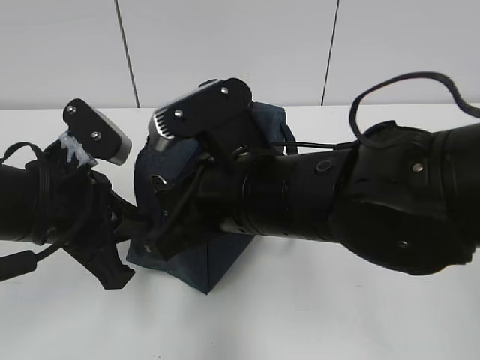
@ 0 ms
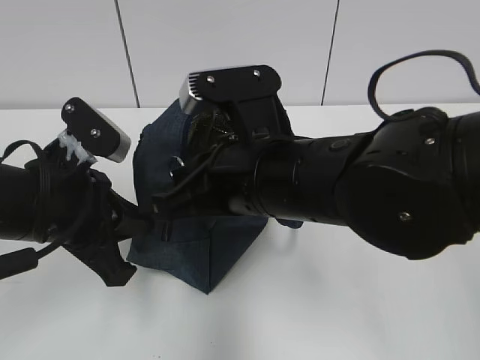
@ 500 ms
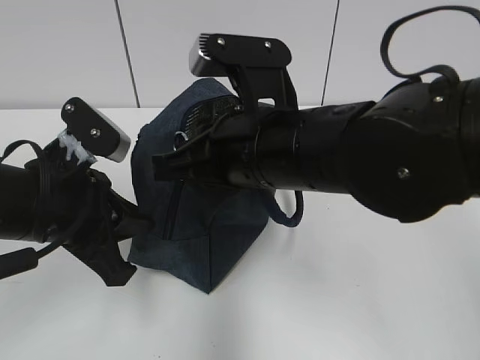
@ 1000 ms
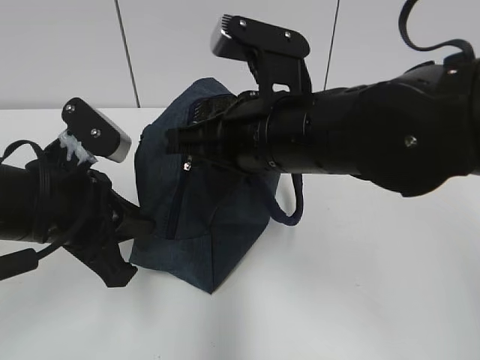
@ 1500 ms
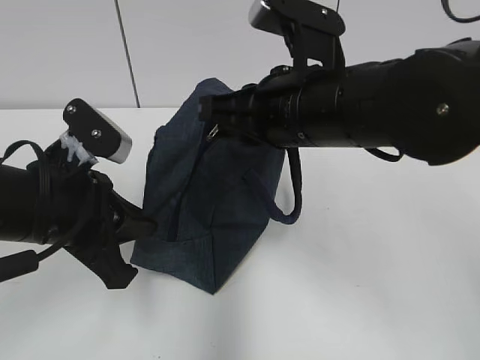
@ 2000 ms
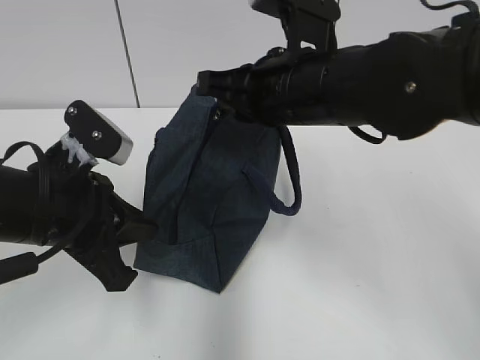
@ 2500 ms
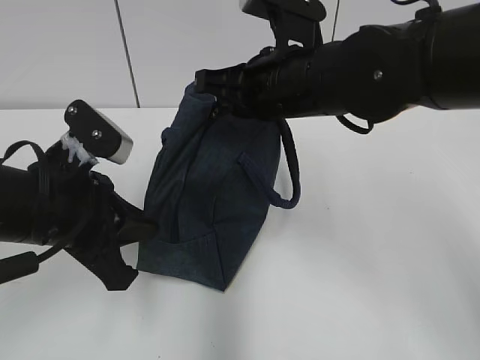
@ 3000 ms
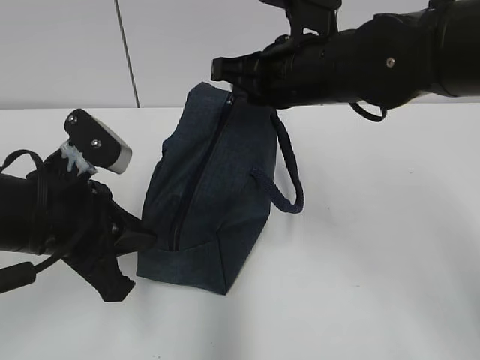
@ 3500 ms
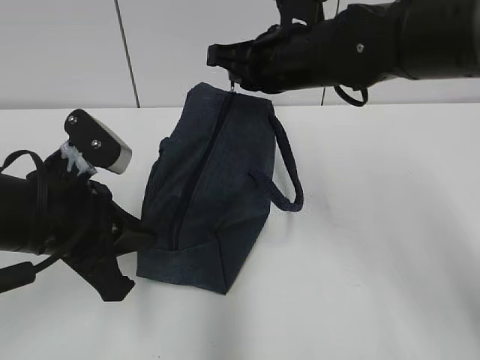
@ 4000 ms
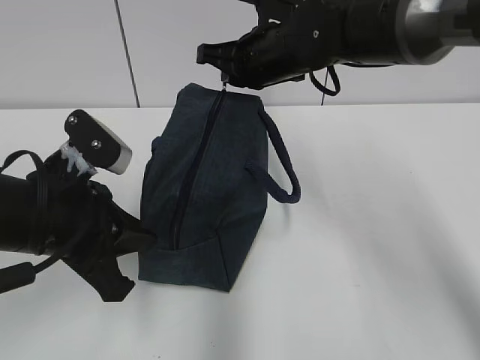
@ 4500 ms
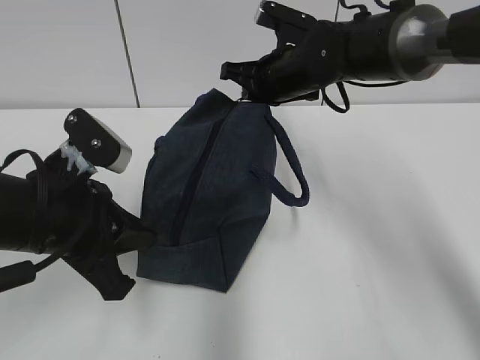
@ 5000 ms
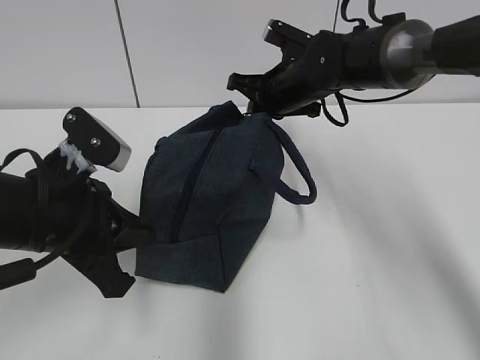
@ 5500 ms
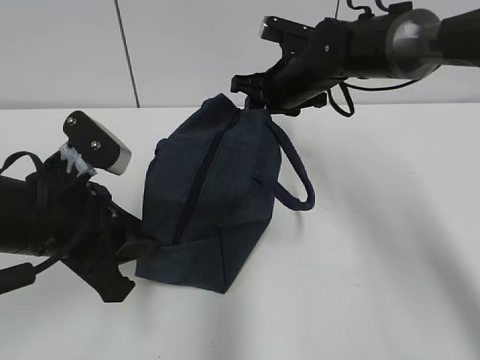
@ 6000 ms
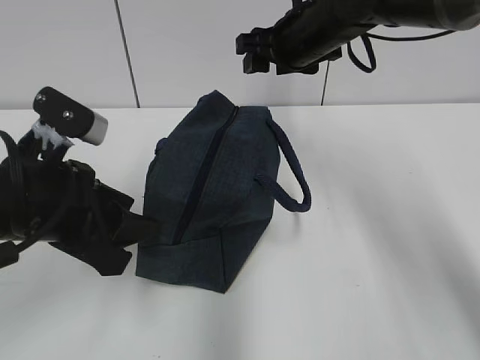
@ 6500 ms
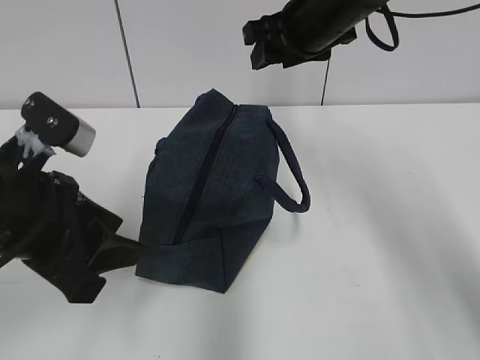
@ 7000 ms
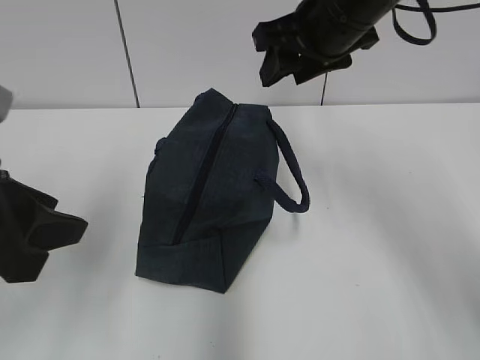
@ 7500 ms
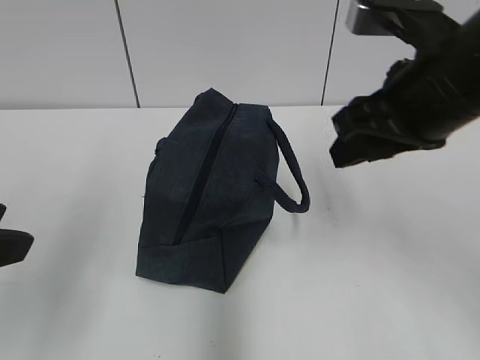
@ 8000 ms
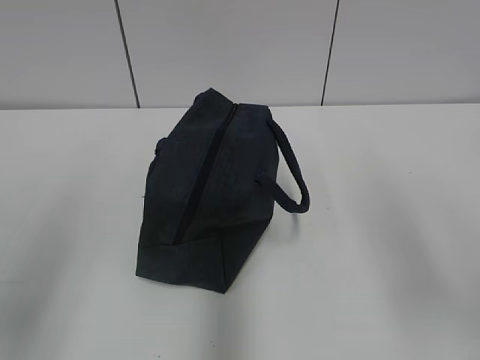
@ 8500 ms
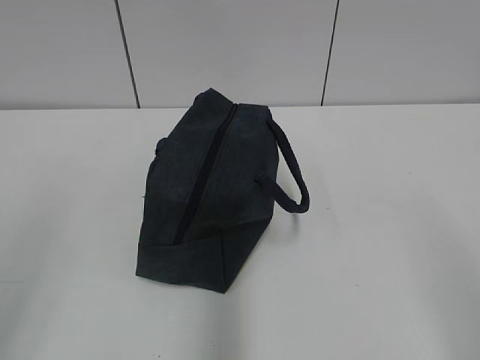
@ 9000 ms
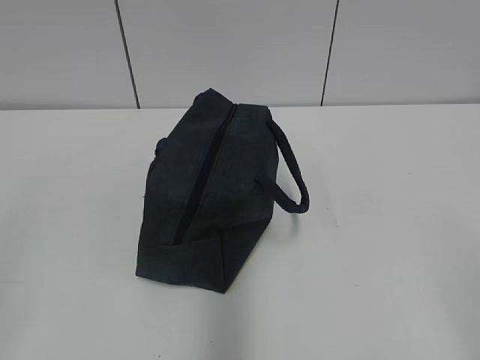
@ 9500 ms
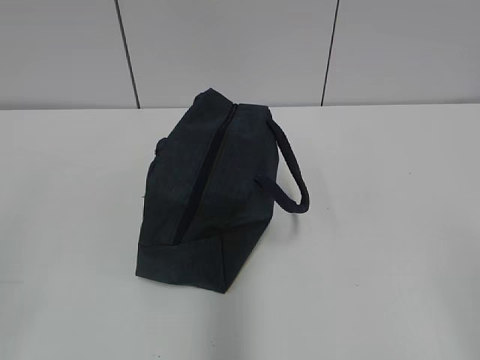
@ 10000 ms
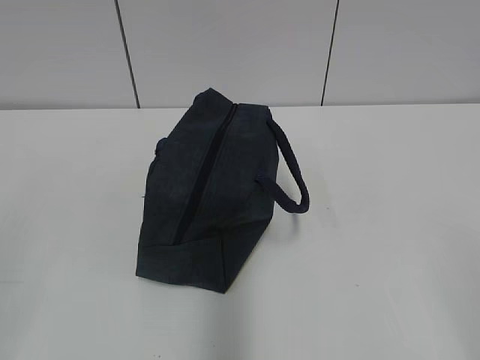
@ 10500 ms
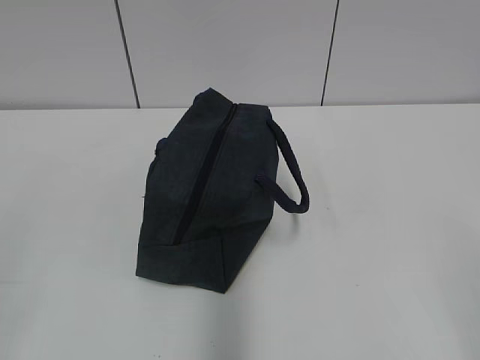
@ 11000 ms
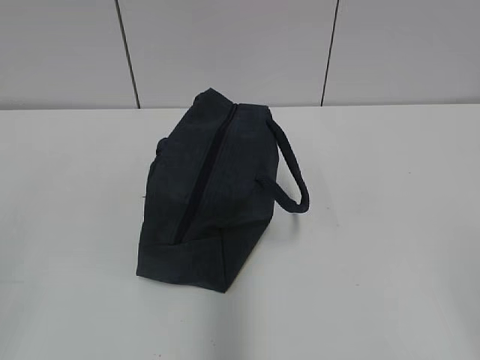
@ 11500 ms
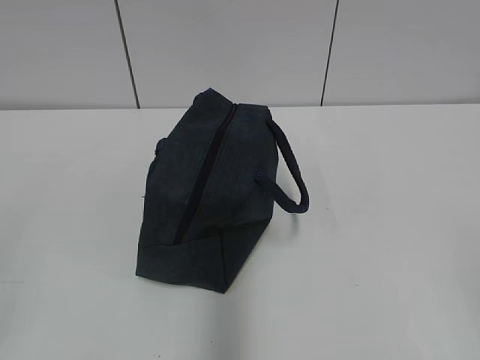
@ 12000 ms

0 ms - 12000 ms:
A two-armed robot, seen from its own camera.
Step, 0 ms - 5500 ms: Pull the zipper with your right hand.
0 ms - 2000 ms: The right gripper ends up some 10 cm from where it was.
2000 ms - 4000 ms: The right gripper heads forward, covering some 10 cm.
4000 ms - 6000 ms: The right gripper goes approximately 10 cm forward and downward, and opens up. Meanwhile the left gripper opens its fingers.
6000 ms - 8000 ms: The left gripper shifts roughly 15 cm upward, backward and to the left, while the right gripper moves backward and upward, some 25 cm.
8000 ms - 10000 ms: The right gripper heads backward and to the right, covering roughly 30 cm. The left gripper moves backward and to the left, roughly 15 cm.

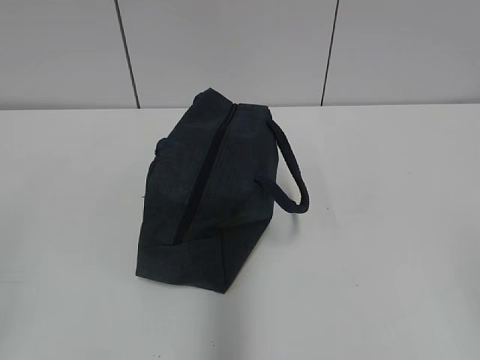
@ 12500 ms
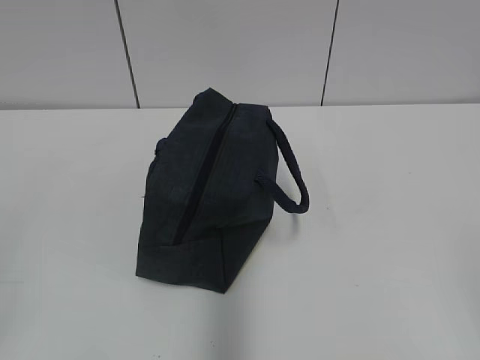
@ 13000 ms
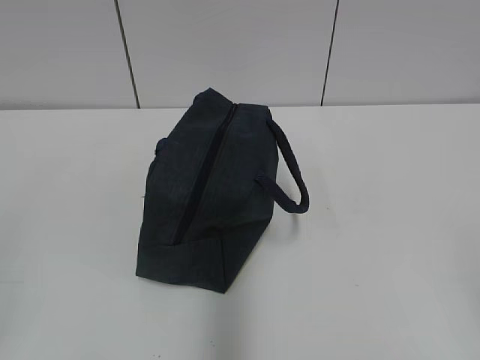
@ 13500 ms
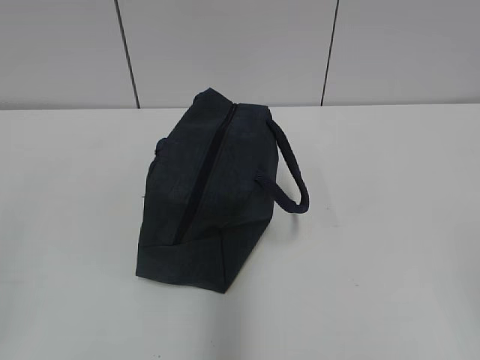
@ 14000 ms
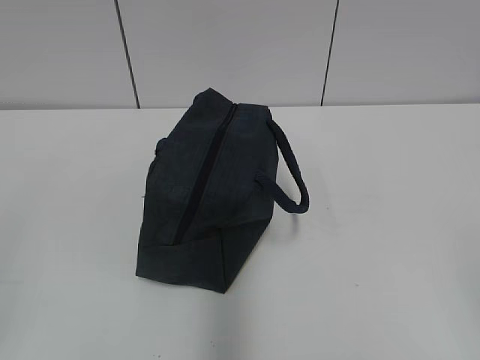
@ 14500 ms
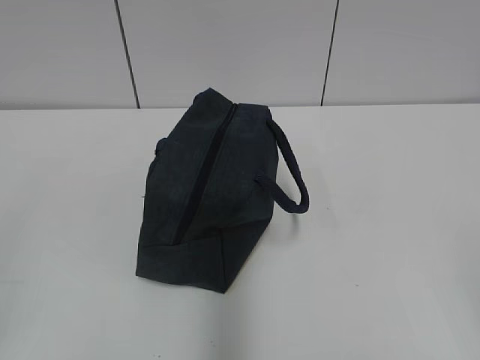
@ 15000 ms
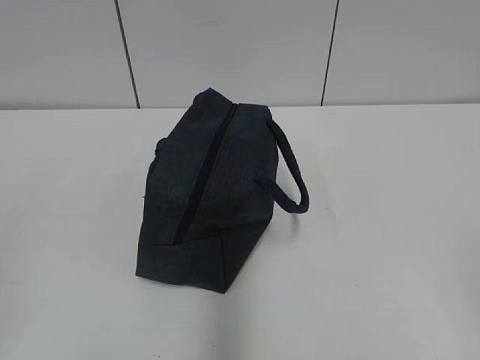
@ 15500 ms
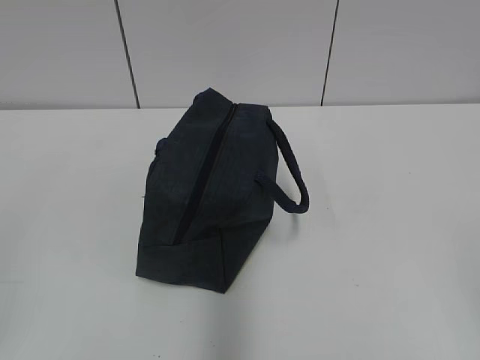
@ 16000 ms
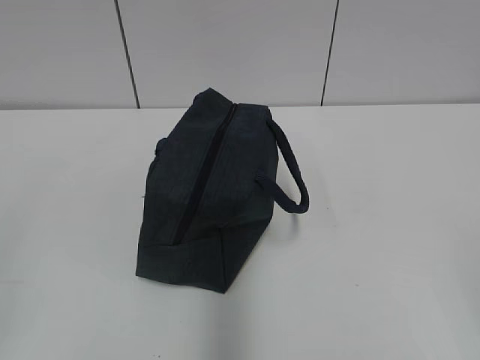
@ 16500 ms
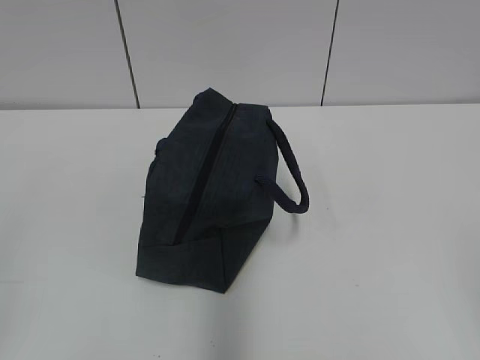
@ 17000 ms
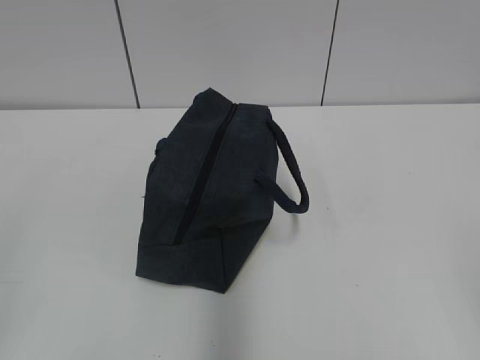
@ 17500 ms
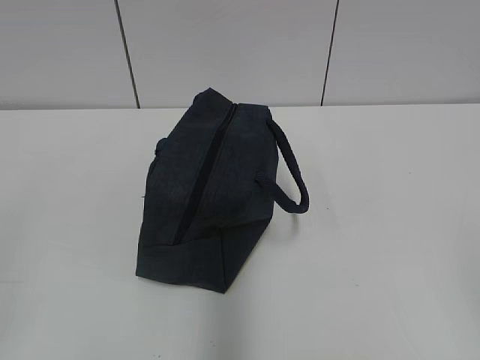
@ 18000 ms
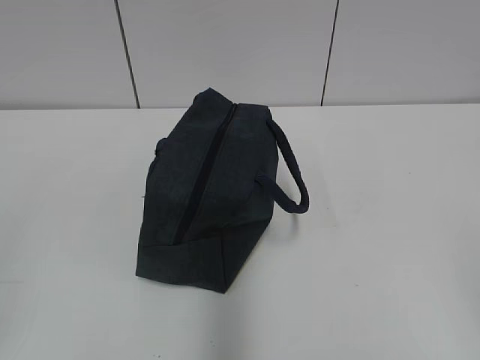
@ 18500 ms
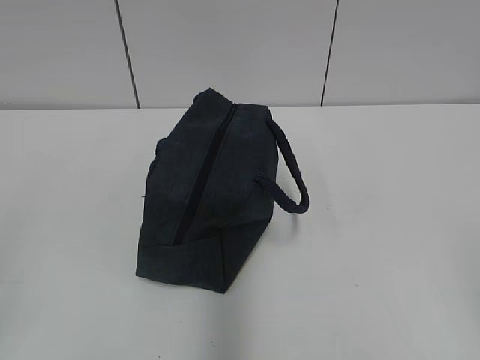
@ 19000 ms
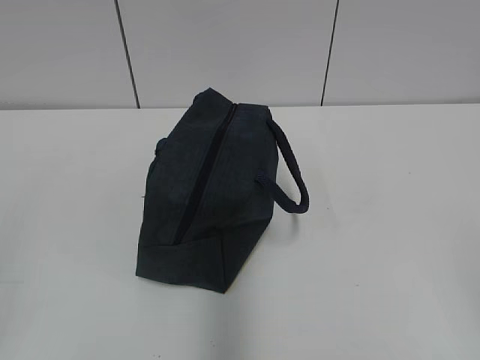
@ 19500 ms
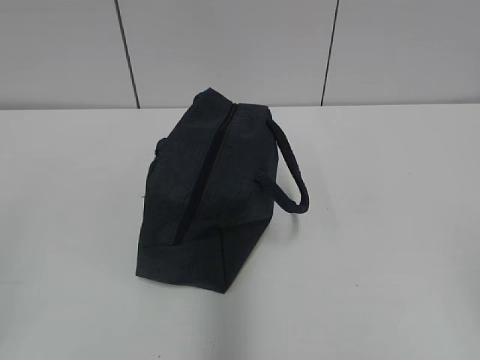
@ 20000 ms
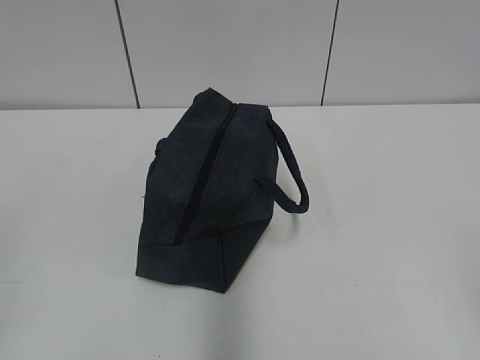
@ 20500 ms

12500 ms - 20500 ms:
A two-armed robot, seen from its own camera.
12500 ms - 20500 ms: The two grippers keep their place.

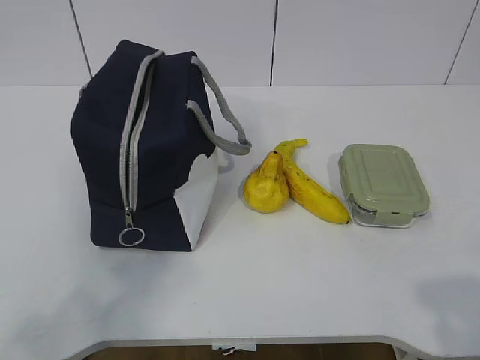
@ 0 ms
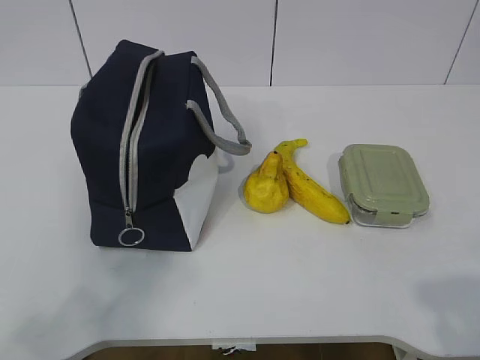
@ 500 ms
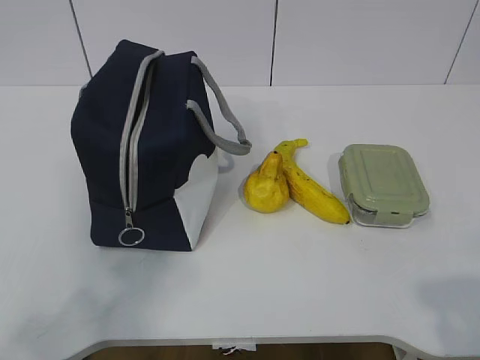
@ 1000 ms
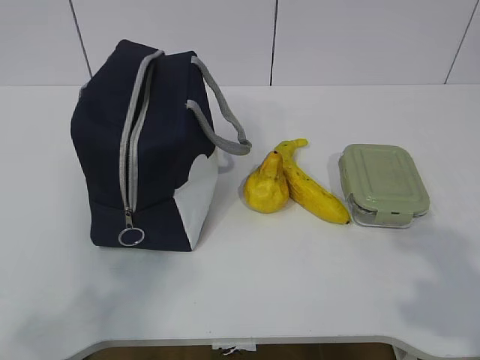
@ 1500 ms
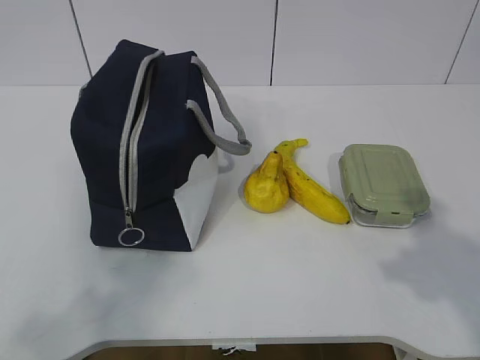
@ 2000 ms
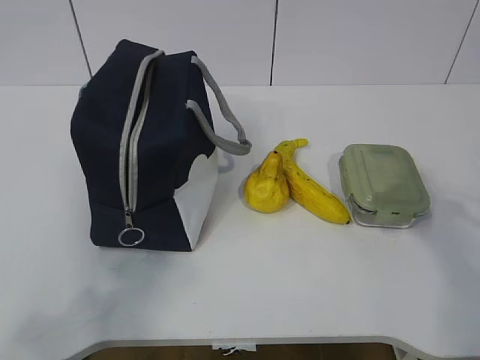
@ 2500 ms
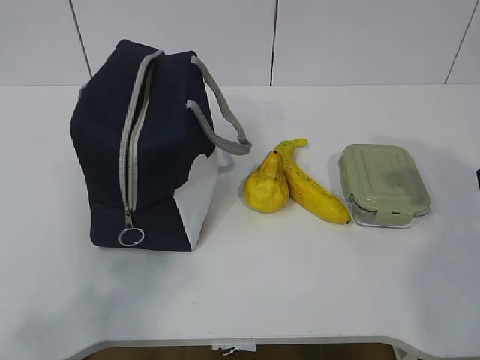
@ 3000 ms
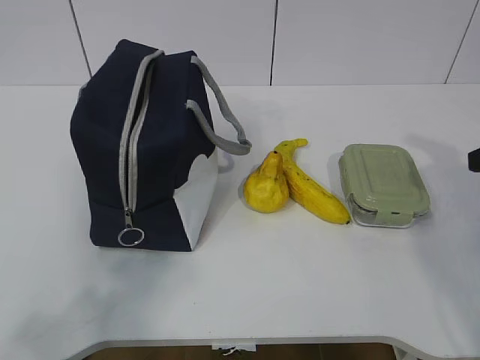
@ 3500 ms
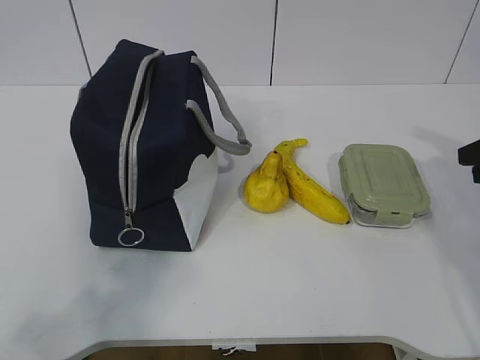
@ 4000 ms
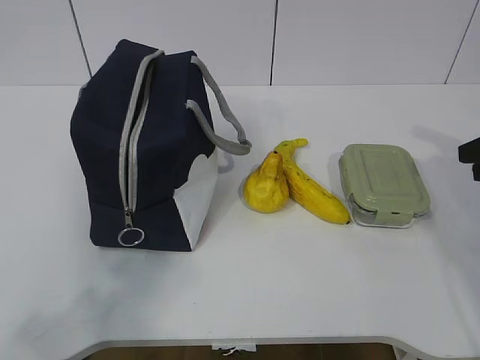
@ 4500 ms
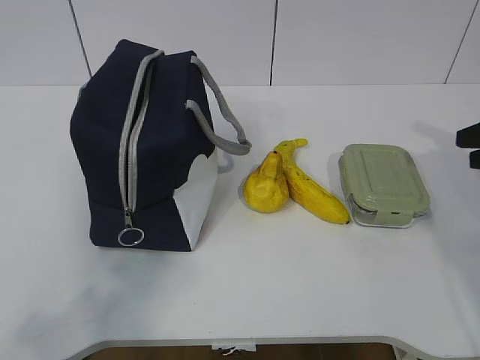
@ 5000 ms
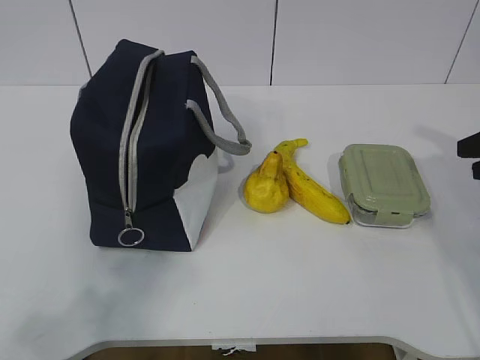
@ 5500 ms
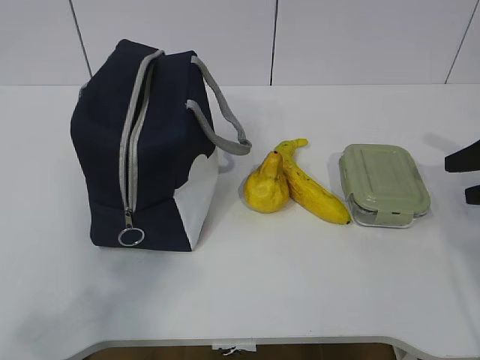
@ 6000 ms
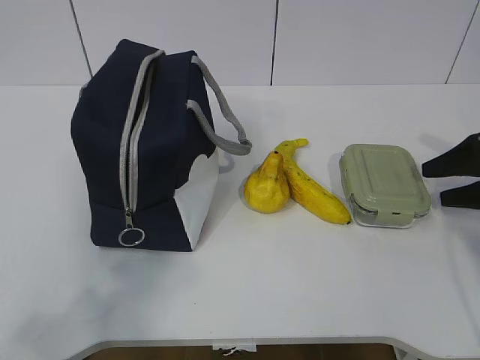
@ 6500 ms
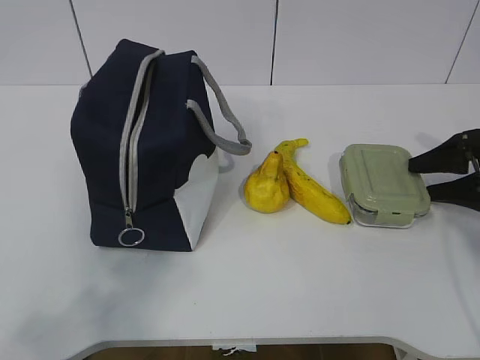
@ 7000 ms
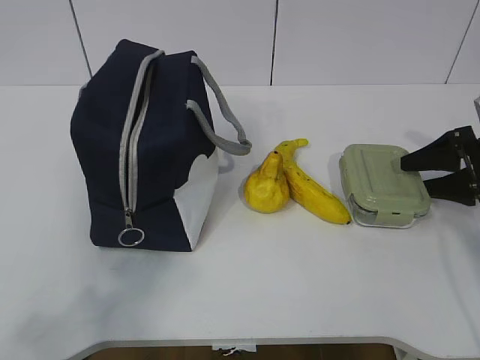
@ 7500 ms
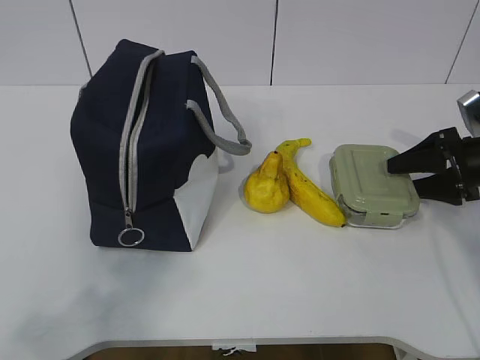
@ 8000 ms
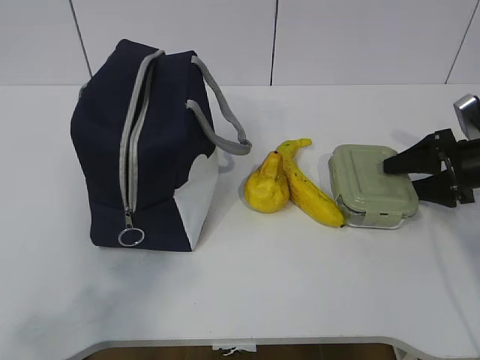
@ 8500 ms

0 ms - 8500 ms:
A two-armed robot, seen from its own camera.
2000 ms - 4000 ms: The right gripper is displaced forward and to the right by roughly 20 cm.
4000 ms - 6500 ms: The right gripper travels downward by about 5 cm.
6500 ms - 8500 ms: The right gripper moves about 5 cm.
